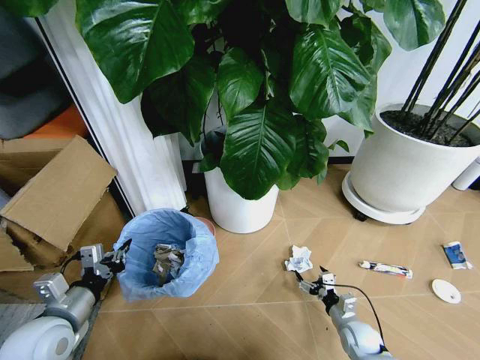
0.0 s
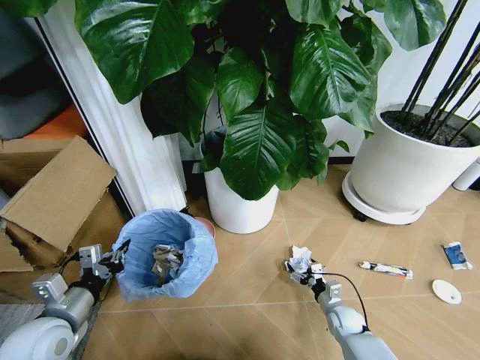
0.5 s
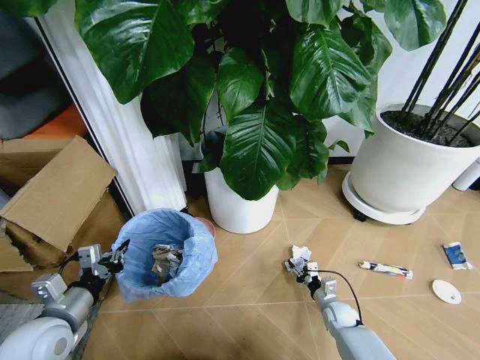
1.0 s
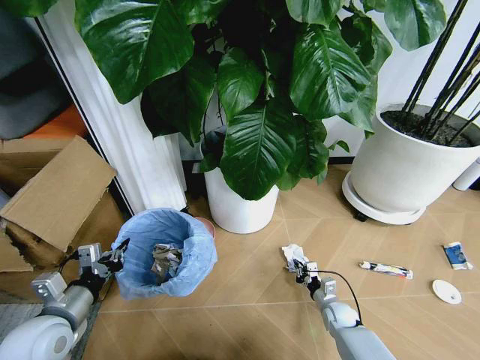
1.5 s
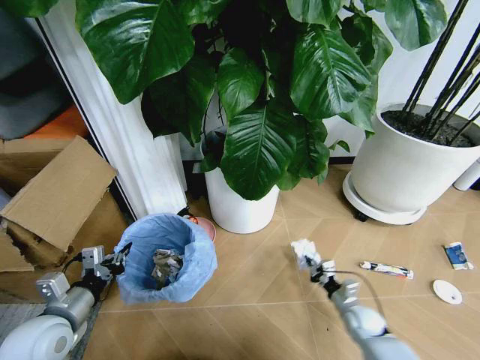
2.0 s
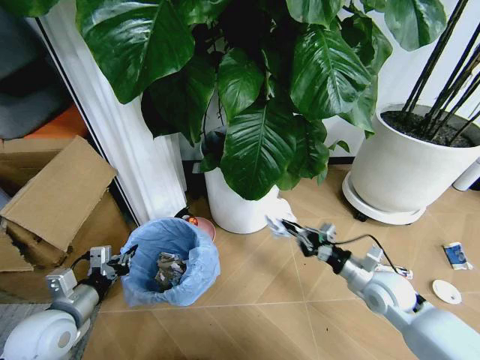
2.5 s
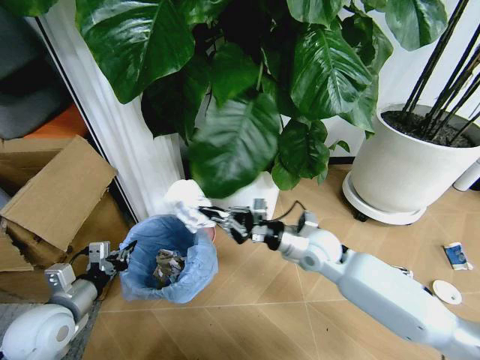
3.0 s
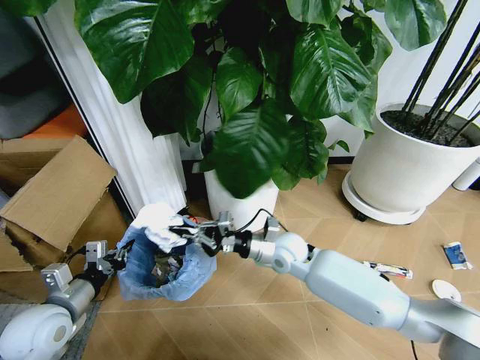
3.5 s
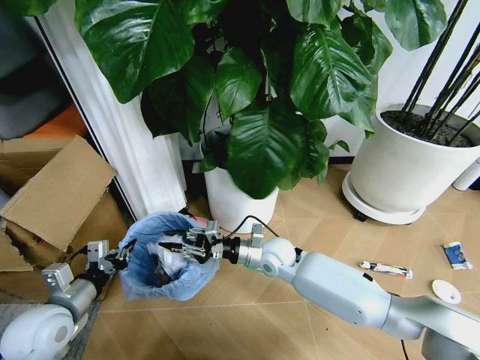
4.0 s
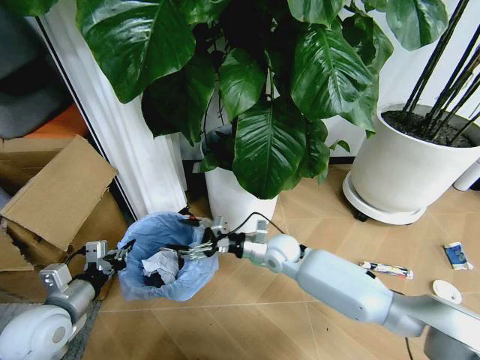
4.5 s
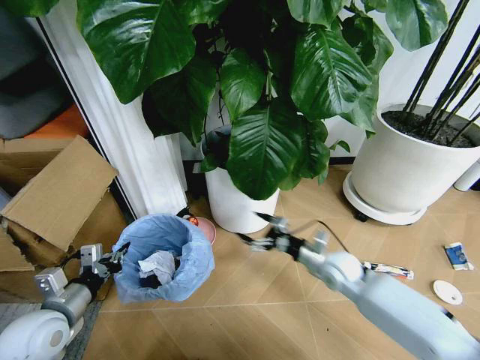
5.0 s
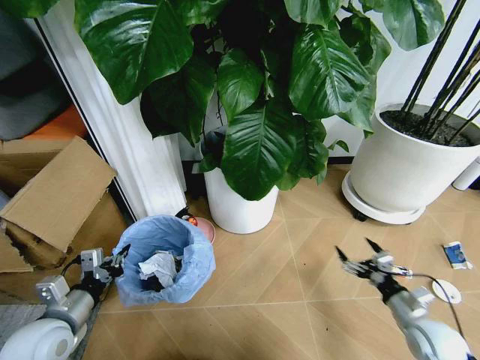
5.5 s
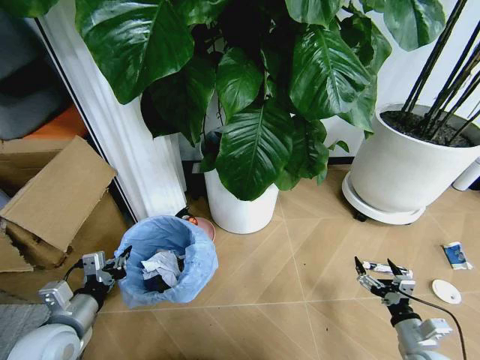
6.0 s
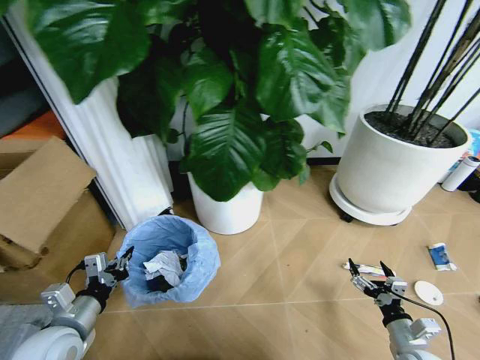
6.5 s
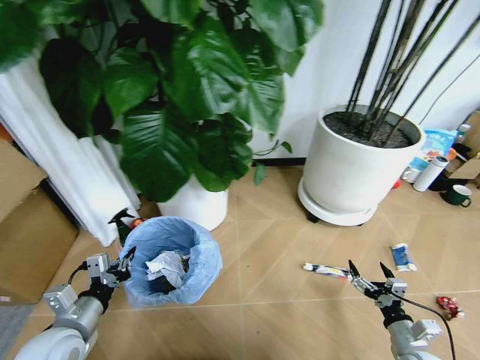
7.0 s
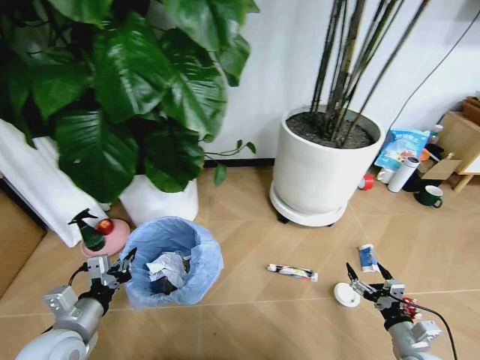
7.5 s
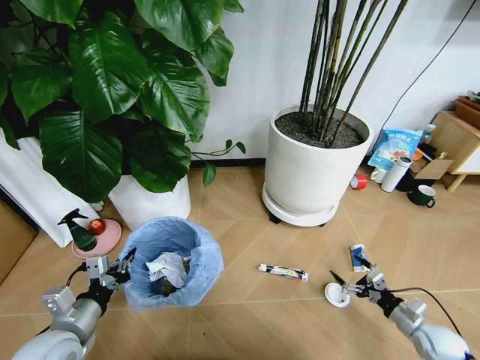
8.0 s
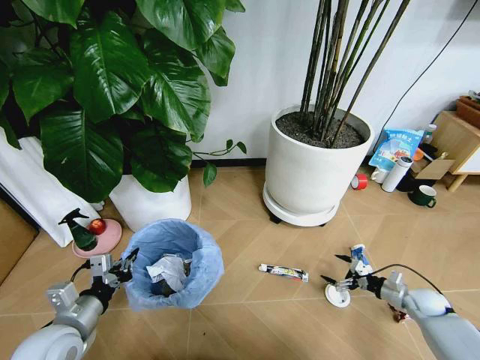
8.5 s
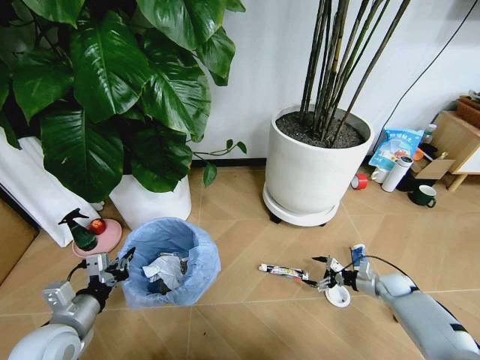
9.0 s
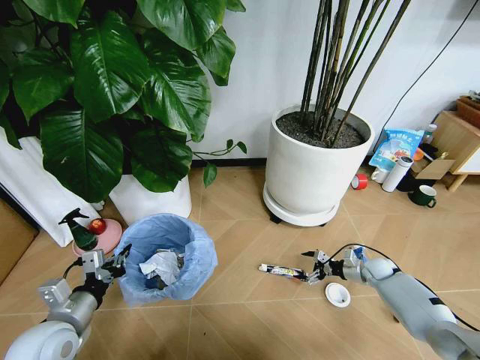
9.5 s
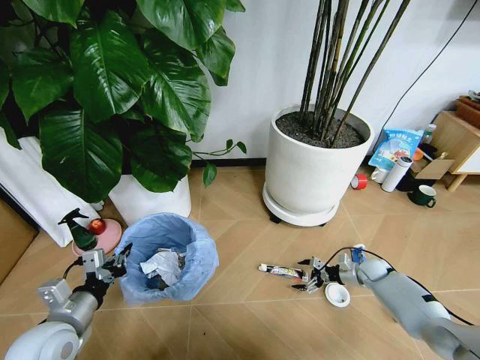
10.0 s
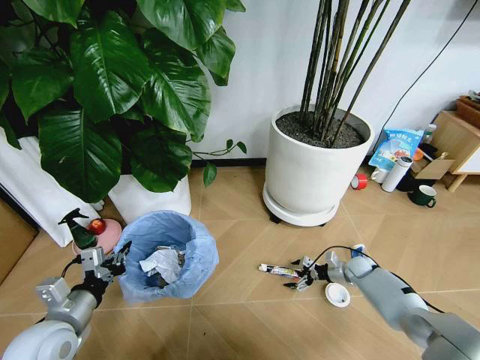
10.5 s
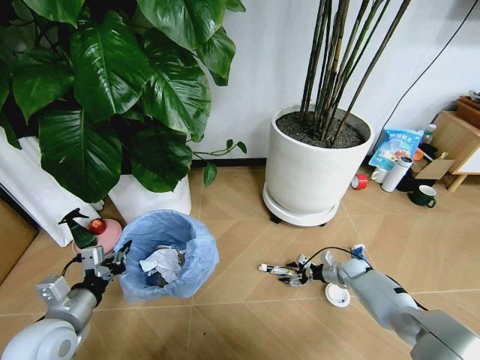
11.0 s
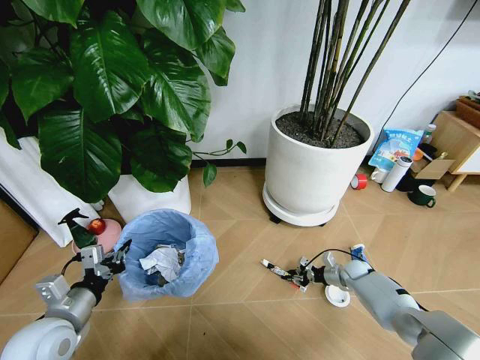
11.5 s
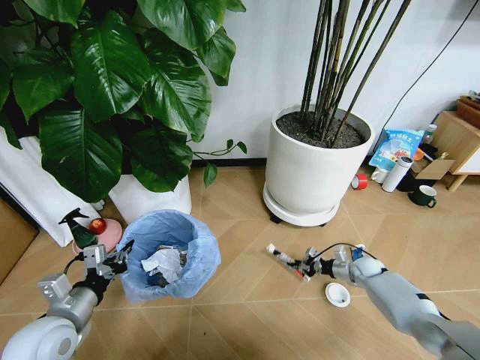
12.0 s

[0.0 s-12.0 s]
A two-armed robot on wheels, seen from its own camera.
Task of the whole recording: Pick up the trash bin and place the garbage on the floor into it.
0.0 to 2.0 s: The right gripper shifts by approximately 5 cm, and closes.
2.0 to 4.0 s: The right gripper is displaced to the left, upward and forward by approximately 35 cm.
4.0 to 6.0 s: The right gripper moves to the right and backward, roughly 40 cm, and opens.
6.0 to 8.0 s: The right gripper is displaced to the right and forward by about 10 cm.
8.0 to 10.0 s: The right gripper heads forward, covering approximately 20 cm.
10.0 to 12.0 s: The right gripper closes.

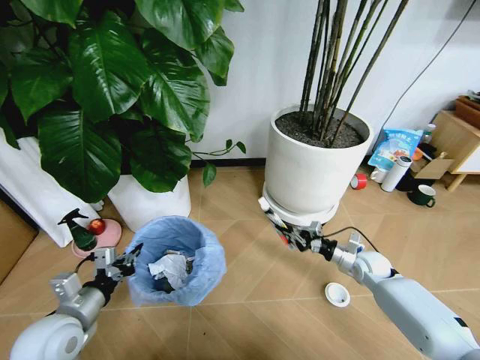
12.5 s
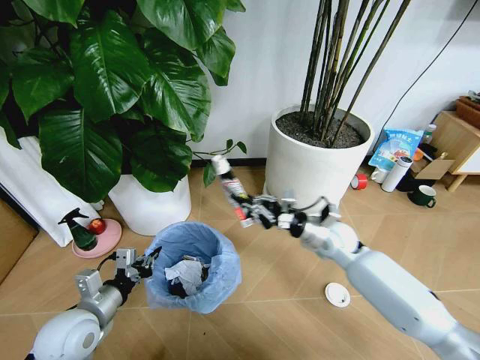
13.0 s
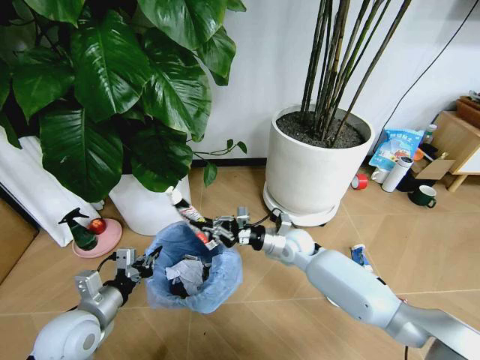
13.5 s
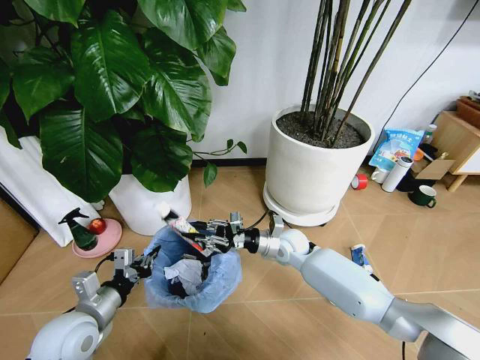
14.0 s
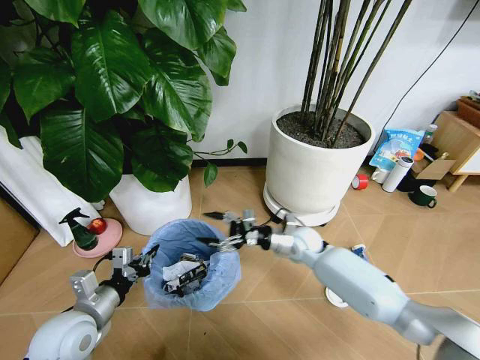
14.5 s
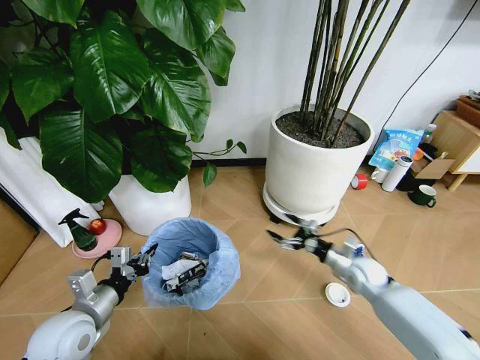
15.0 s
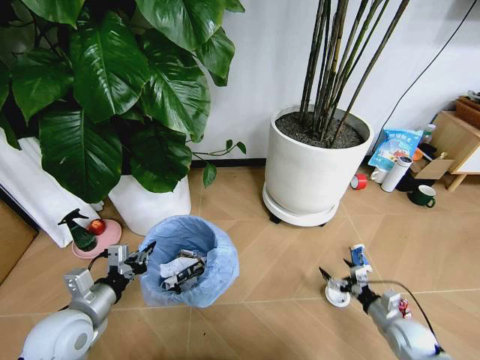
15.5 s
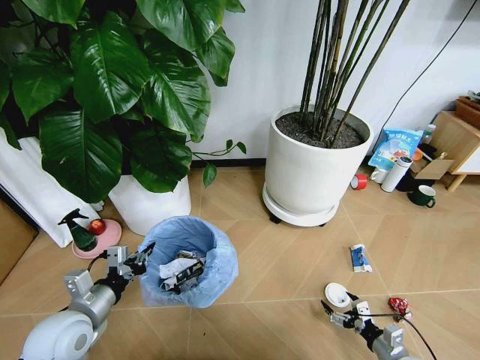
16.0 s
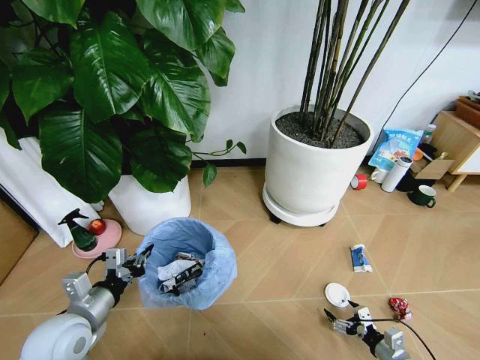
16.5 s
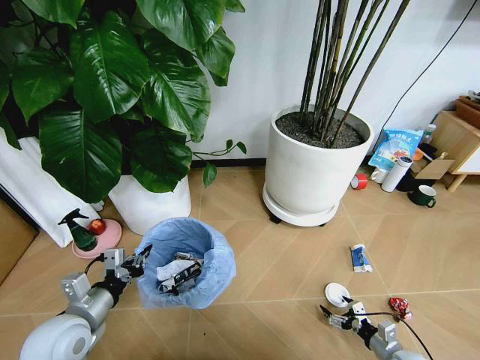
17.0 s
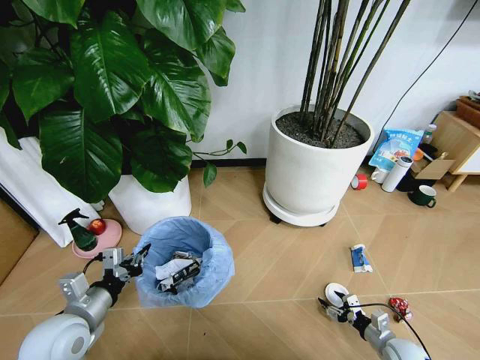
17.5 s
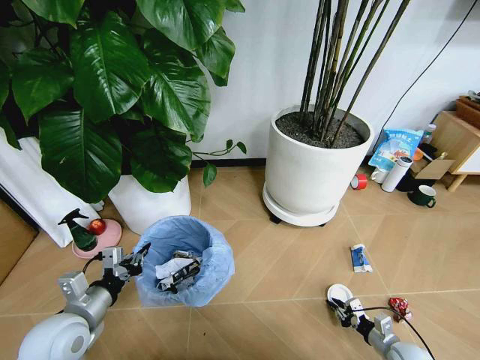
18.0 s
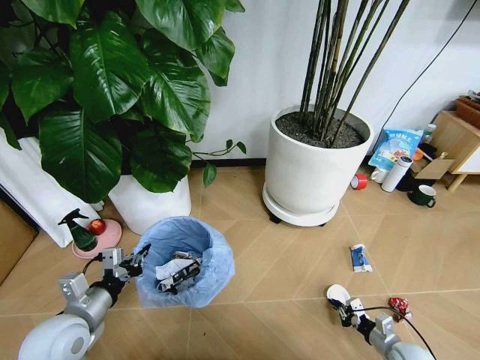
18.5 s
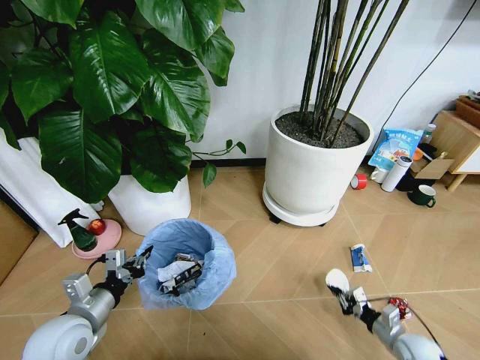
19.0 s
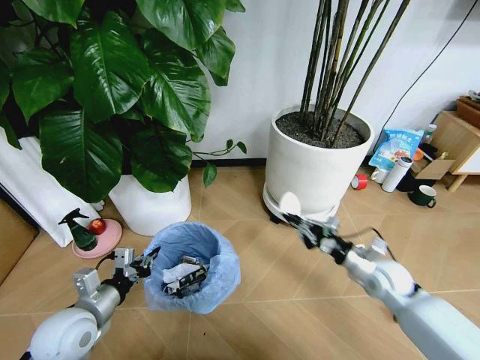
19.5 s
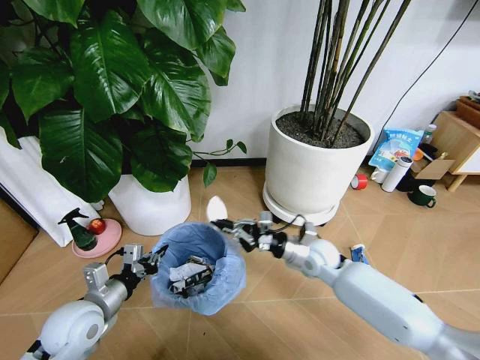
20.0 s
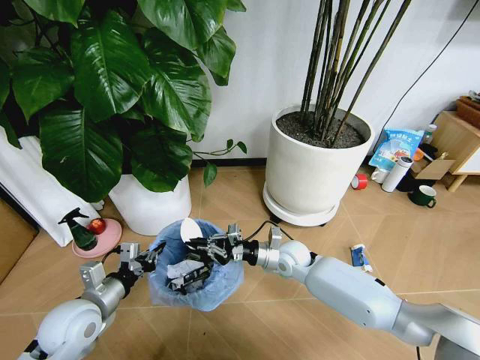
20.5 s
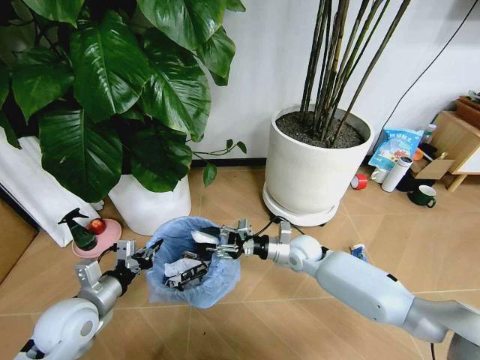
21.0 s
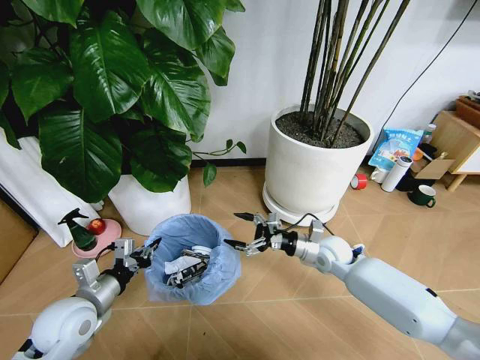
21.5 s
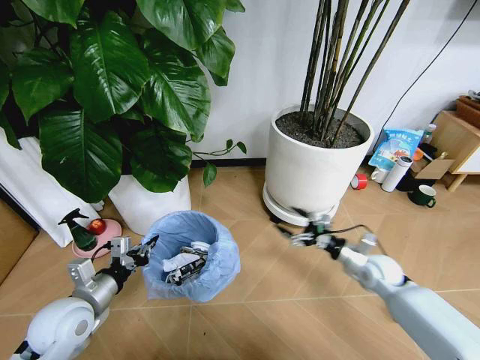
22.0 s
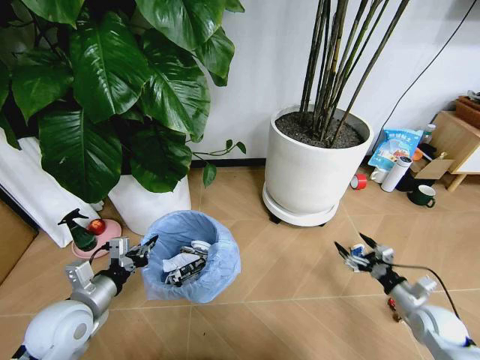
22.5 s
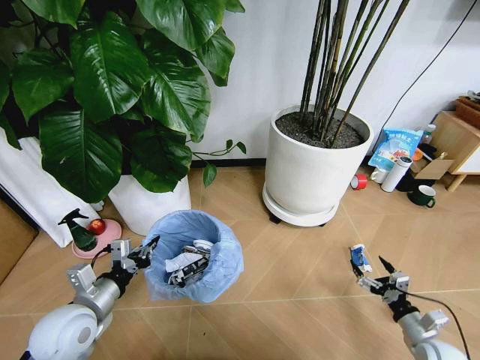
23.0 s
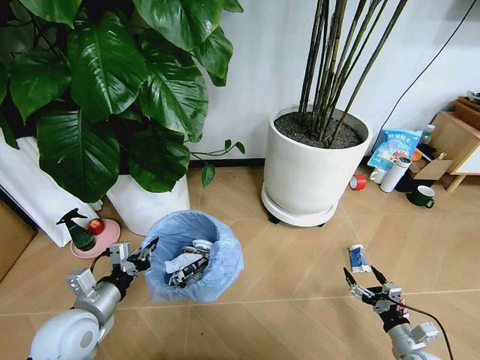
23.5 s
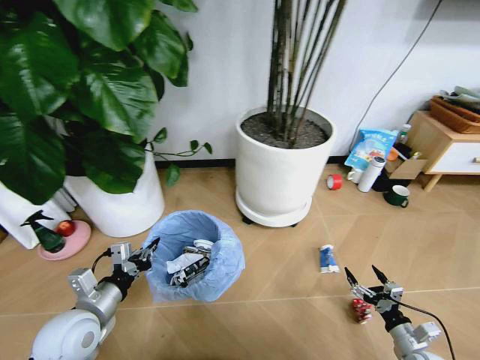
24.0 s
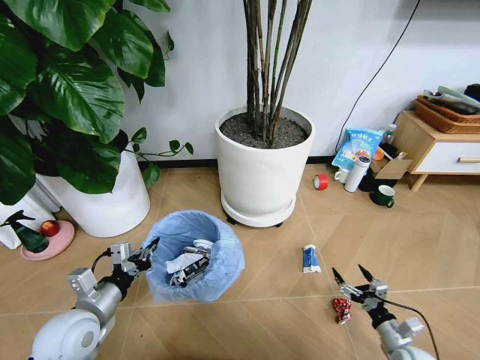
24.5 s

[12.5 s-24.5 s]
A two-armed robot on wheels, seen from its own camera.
Task of the whole recording: Pick up the trash bin and place the garbage on the floor into it.
12.5 to 14.5 s: The right gripper is displaced to the left by about 20 cm, and opens its fingers.
14.5 to 16.5 s: The right gripper shifts some 40 cm backward, to the right and downward.
16.5 to 18.5 s: The right gripper closes.
18.5 to 20.5 s: The right gripper is displaced to the left, forward and upward by roughly 40 cm.
20.5 to 22.5 s: The right gripper shifts approximately 35 cm to the right and backward, and opens its fingers.
22.5 to 24.5 s: The right gripper shifts some 10 cm downward and backward.

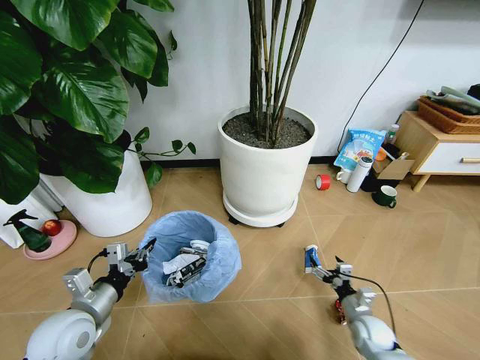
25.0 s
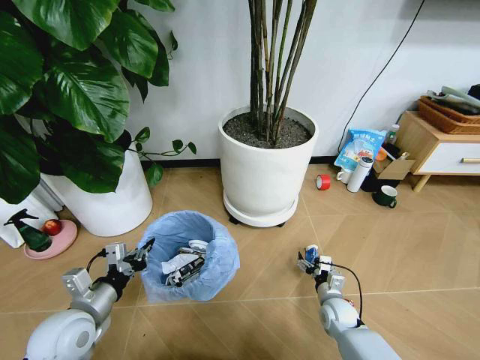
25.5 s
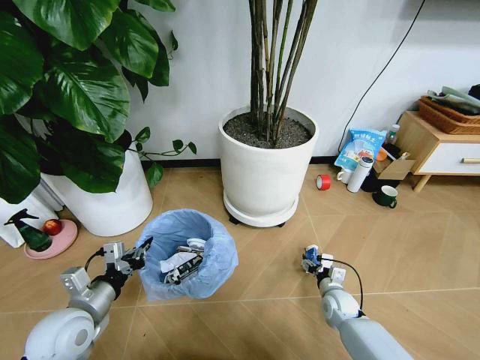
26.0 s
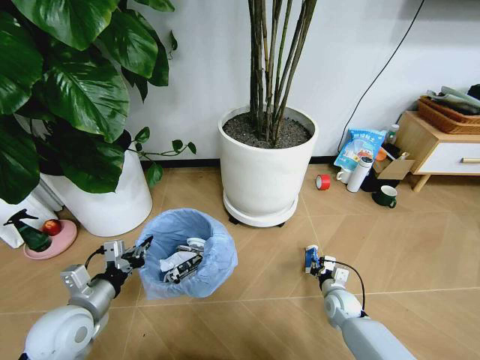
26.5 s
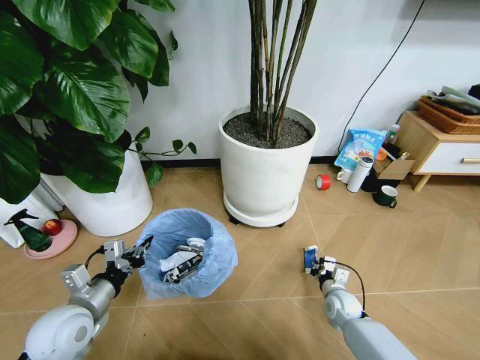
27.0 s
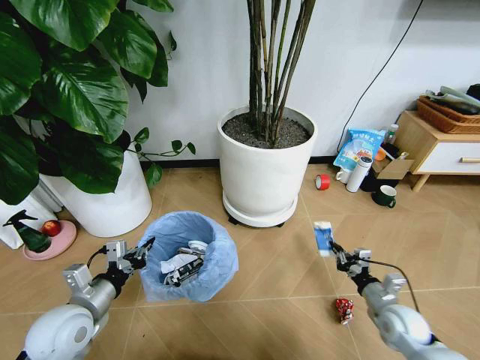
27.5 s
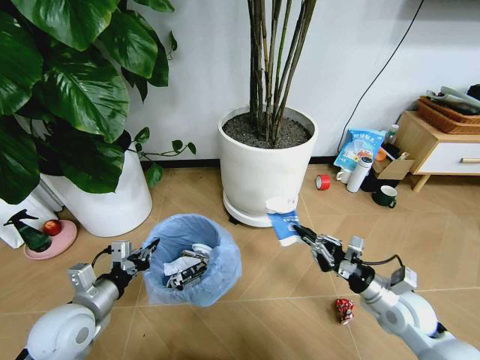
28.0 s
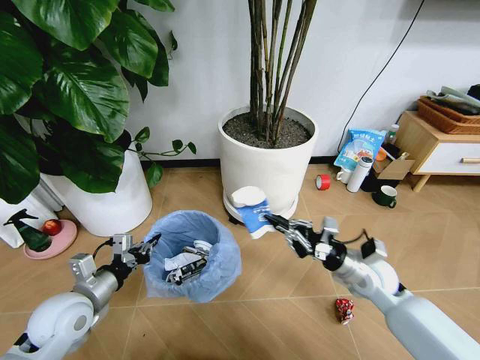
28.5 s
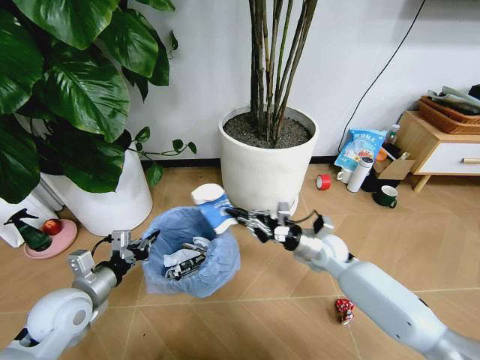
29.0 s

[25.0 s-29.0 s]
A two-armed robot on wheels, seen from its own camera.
Task of the whole recording: Pick up the trash bin and place the garbage on the floor into it.
25.0 to 27.0 s: The right gripper shifts some 5 cm forward, and closes its fingers.
27.0 to 29.0 s: The right gripper travels upward, forward and to the left by roughly 20 cm.
